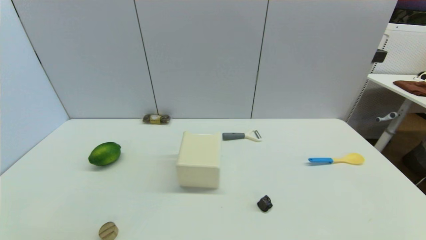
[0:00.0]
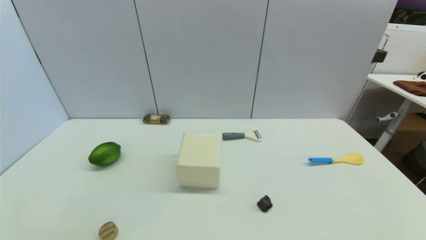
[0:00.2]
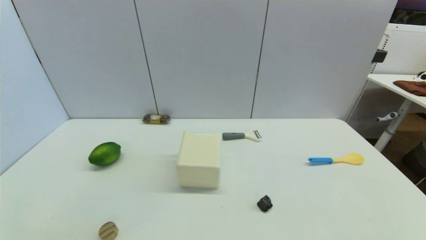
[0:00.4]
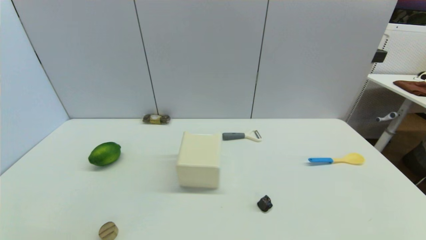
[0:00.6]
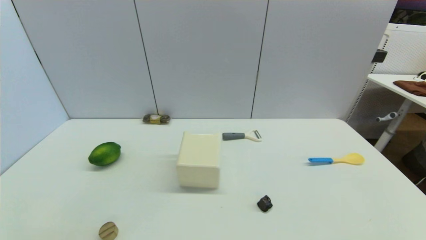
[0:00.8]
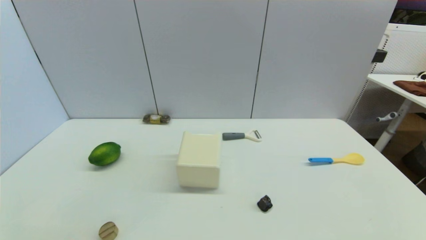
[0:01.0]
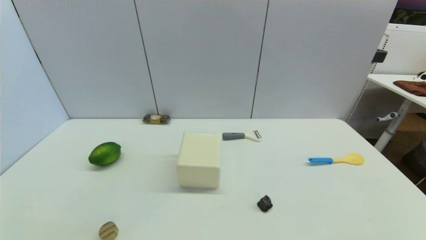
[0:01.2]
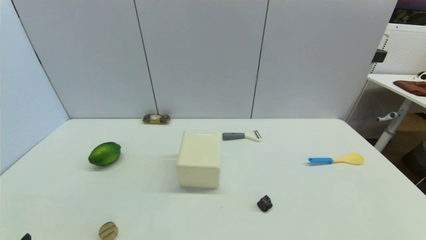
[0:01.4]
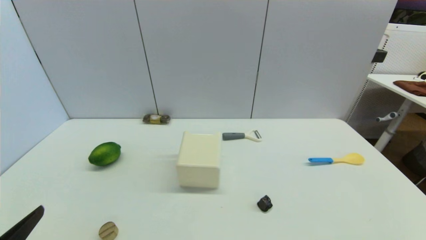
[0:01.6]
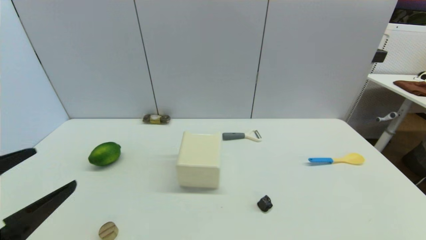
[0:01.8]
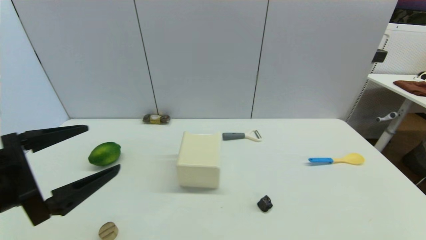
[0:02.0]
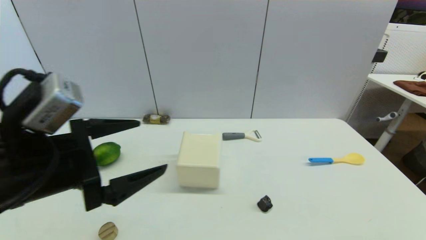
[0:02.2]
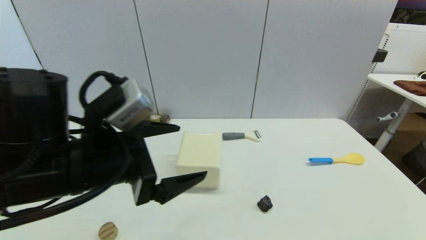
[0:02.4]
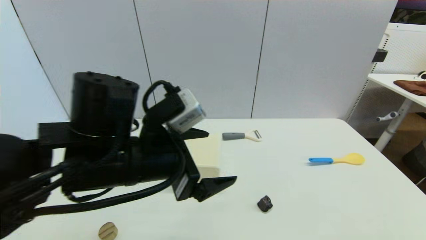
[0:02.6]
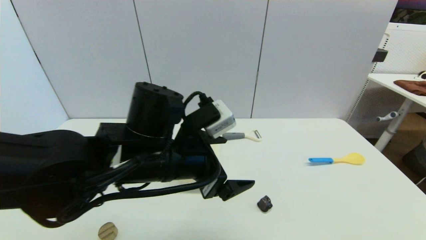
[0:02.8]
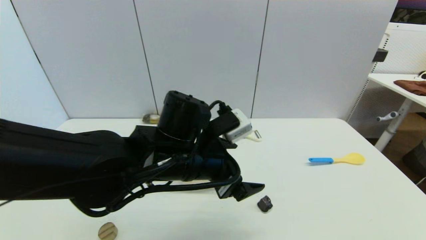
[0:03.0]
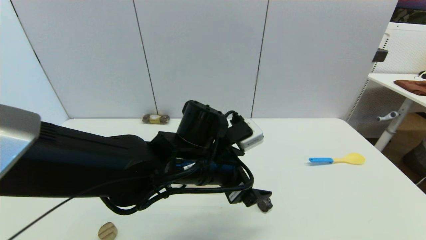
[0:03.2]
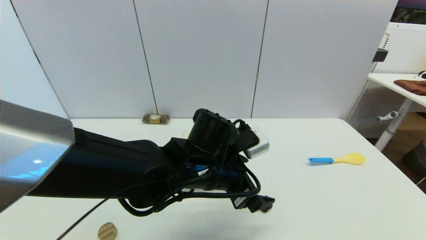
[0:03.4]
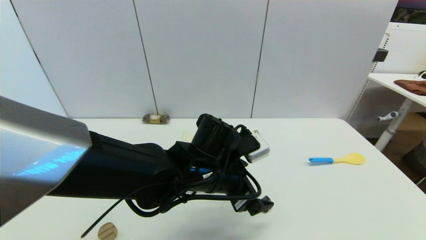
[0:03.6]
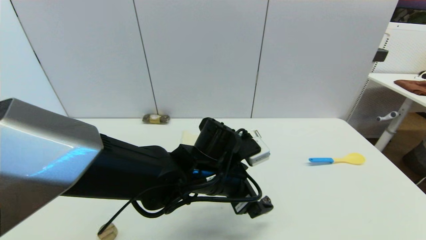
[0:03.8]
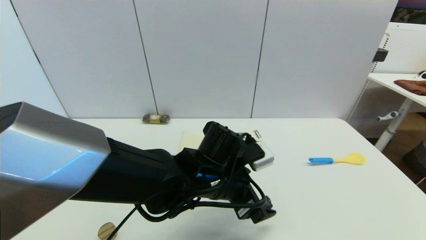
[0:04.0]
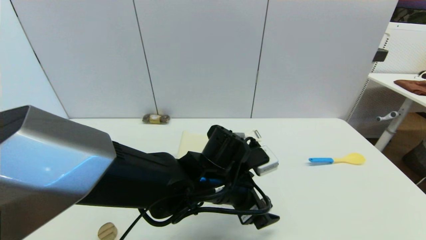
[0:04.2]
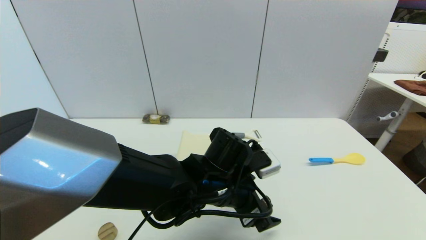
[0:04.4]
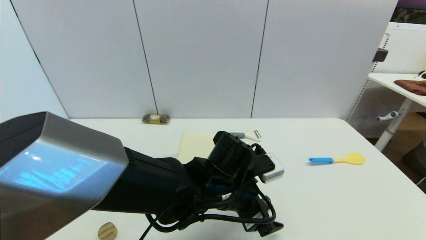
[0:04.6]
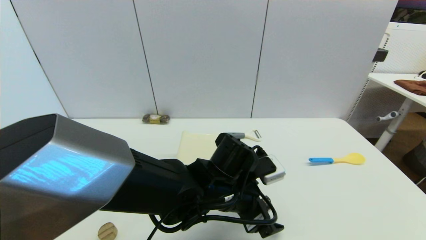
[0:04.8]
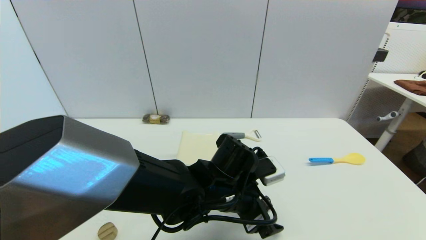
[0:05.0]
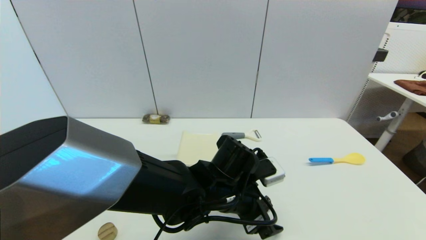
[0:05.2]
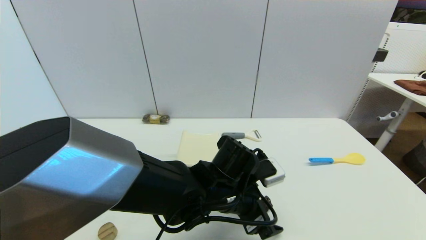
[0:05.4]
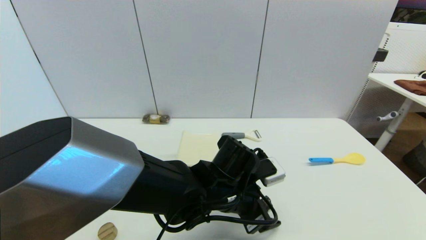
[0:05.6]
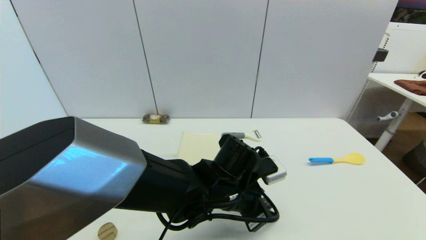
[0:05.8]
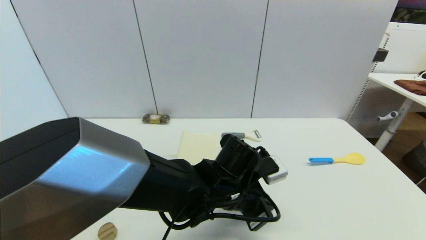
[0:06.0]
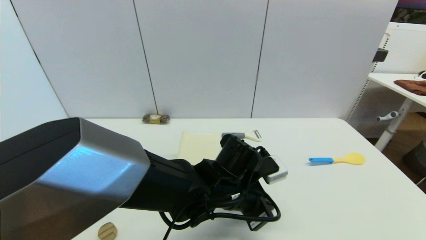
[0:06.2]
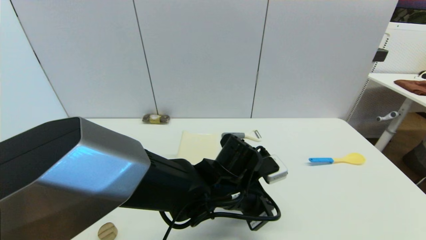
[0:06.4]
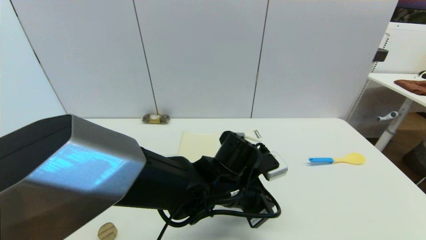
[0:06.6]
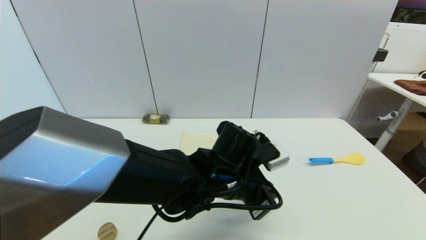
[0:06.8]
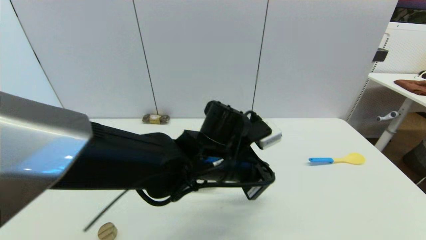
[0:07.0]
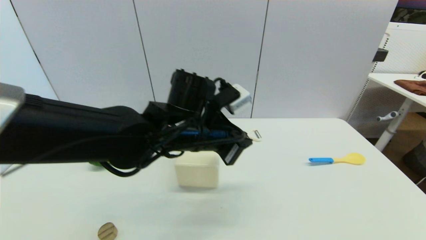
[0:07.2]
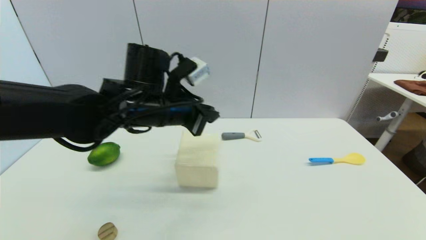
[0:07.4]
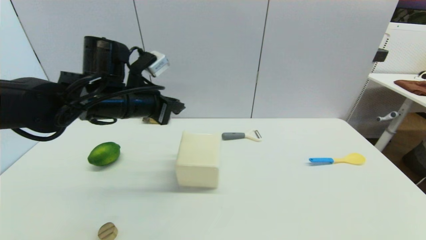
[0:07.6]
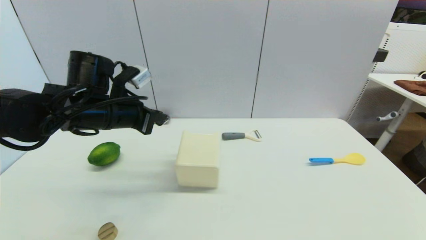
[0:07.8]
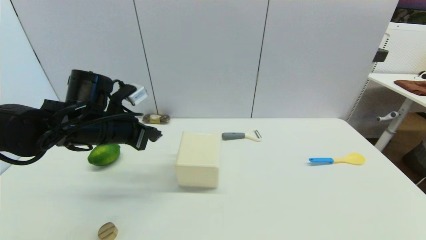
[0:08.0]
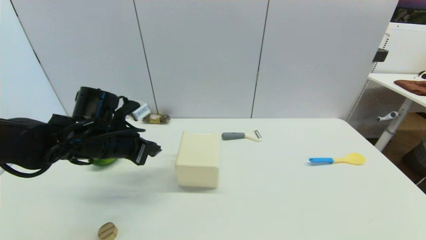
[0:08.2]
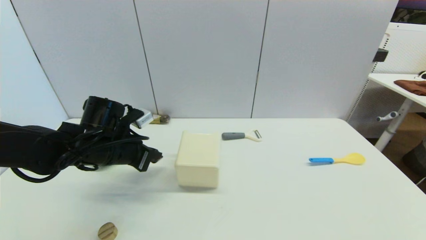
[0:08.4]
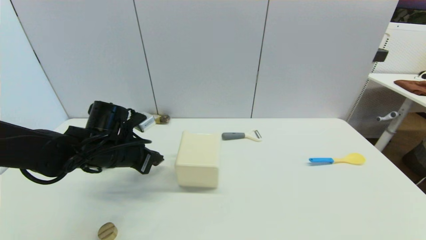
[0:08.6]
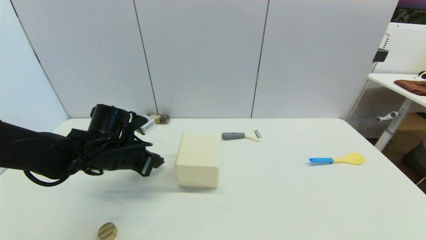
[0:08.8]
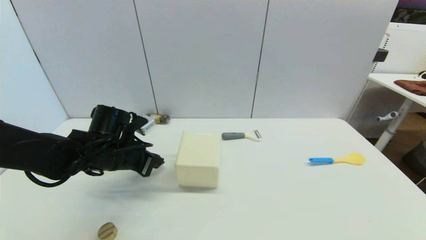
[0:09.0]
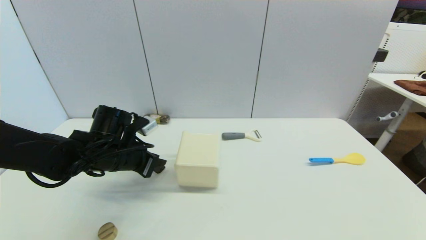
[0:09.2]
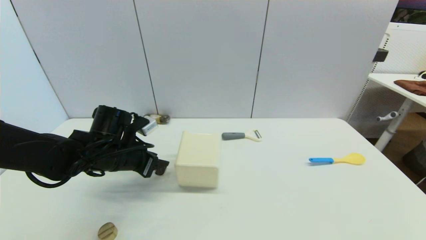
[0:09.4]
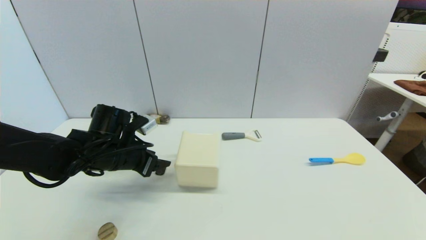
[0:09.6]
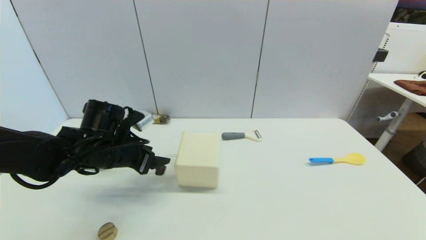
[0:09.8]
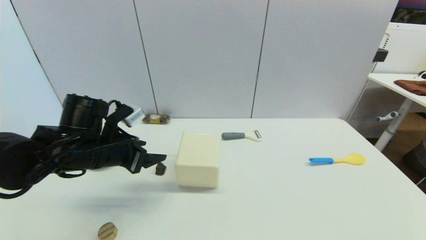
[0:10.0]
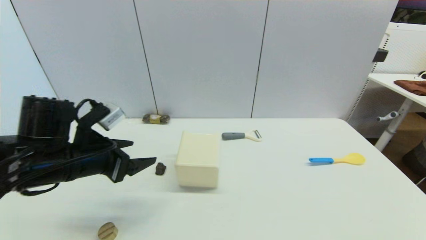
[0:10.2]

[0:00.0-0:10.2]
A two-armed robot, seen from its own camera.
Step, 0:01.4 to 0:06.6: Grasp the coffee capsule with left gripper.
Step, 0:06.8 to 0:09.4: Place the coffee capsule on the table with left gripper.
0:01.4 to 0:03.0: The left gripper shifts approximately 35 cm to the right and forward.
0:03.0 to 0:04.4: The left gripper moves downward and to the right, some 10 cm.
0:04.4 to 0:05.8: The left gripper closes up.
0:05.8 to 0:07.2: The left gripper travels upward and to the left by approximately 15 cm, and closes up.
0:07.2 to 0:08.8: The left gripper moves to the left and downward, roughly 20 cm.
0:08.8 to 0:10.2: The left gripper goes about 10 cm backward and upward, and opens up.

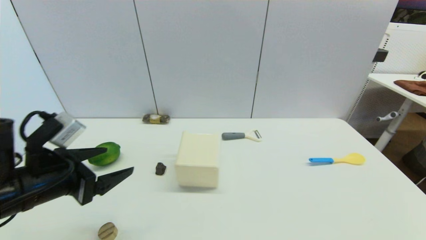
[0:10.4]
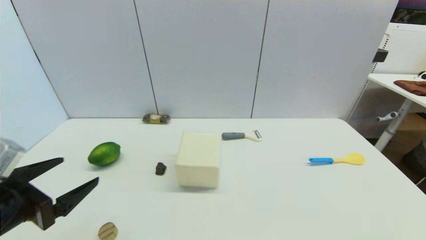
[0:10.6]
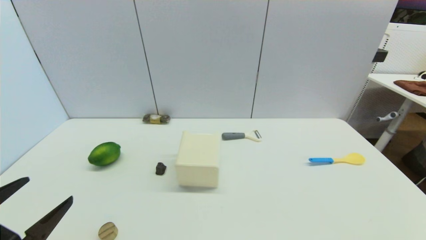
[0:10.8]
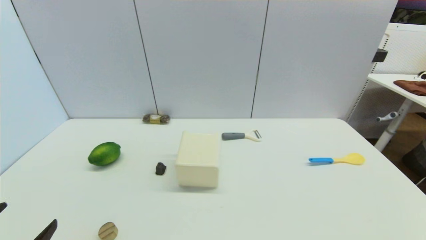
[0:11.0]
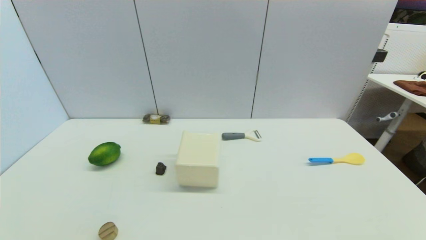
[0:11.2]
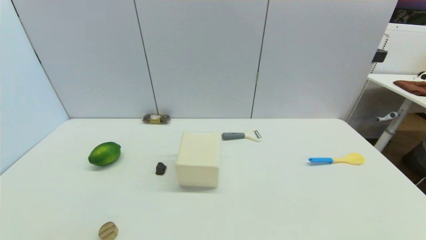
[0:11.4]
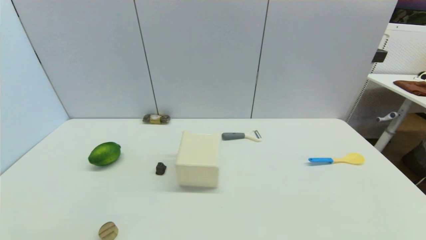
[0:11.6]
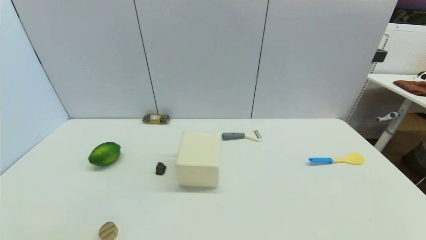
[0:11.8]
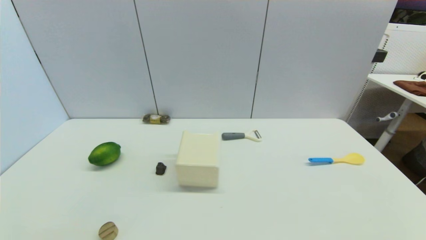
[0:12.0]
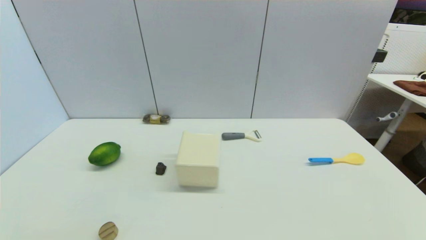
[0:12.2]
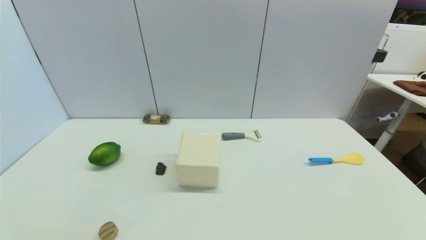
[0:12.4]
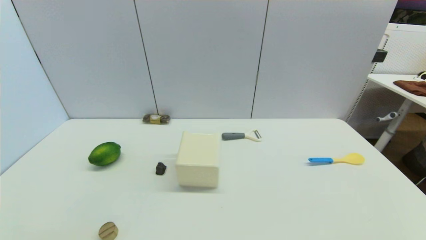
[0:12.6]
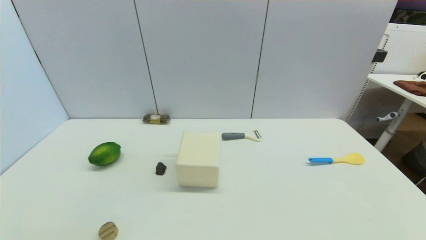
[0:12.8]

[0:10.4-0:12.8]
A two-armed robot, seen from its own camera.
0:10.4 to 0:11.6: The left gripper goes some 20 cm backward and downward.
0:11.6 to 0:12.8: Neither gripper changes place.

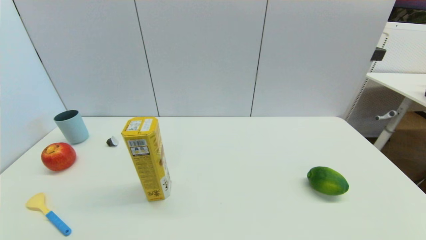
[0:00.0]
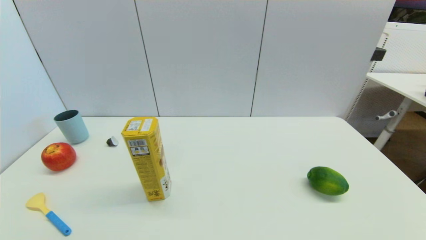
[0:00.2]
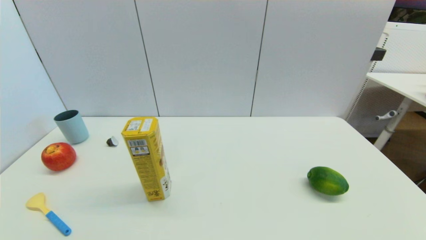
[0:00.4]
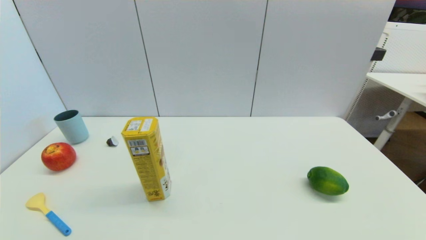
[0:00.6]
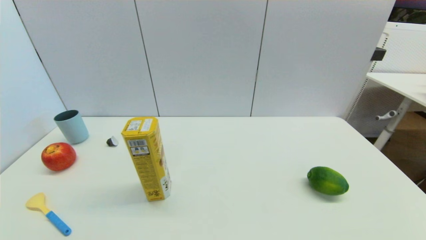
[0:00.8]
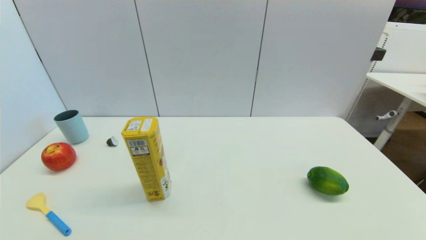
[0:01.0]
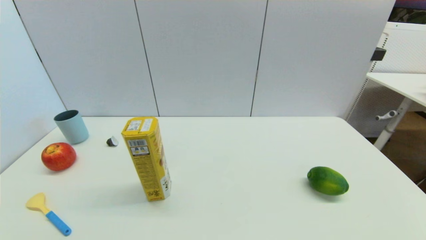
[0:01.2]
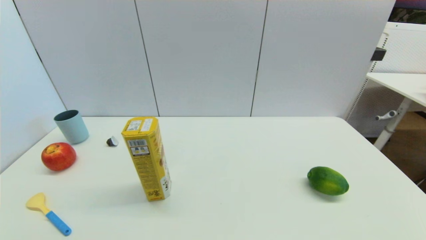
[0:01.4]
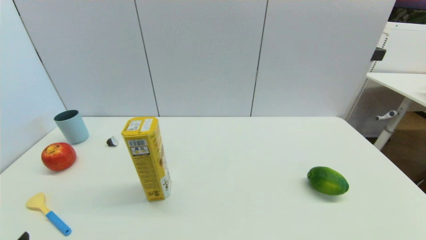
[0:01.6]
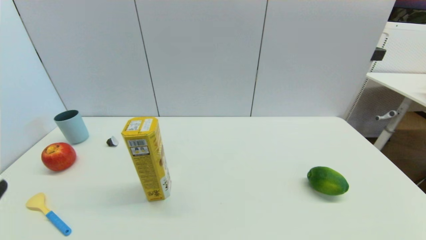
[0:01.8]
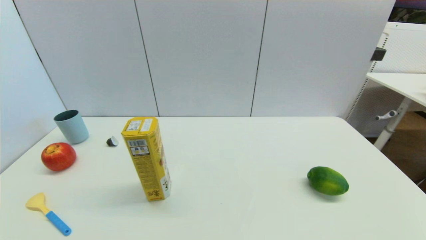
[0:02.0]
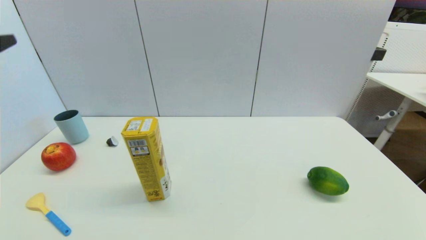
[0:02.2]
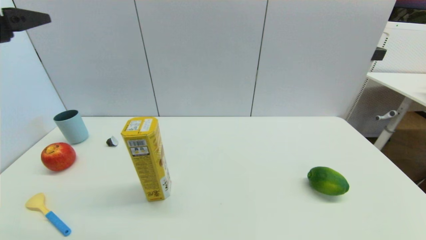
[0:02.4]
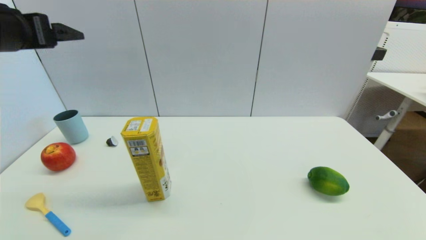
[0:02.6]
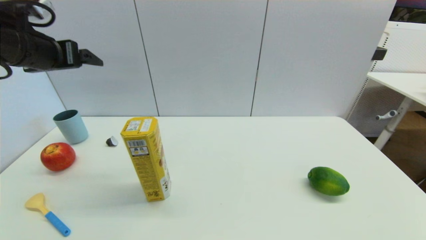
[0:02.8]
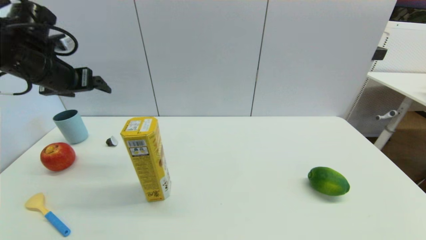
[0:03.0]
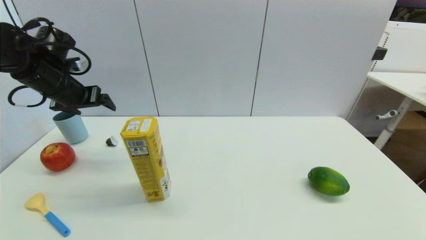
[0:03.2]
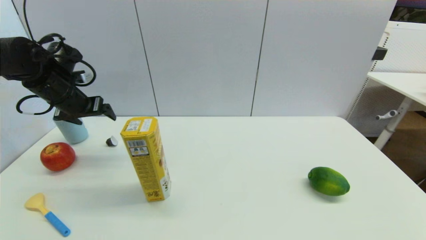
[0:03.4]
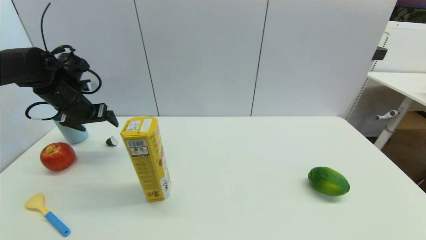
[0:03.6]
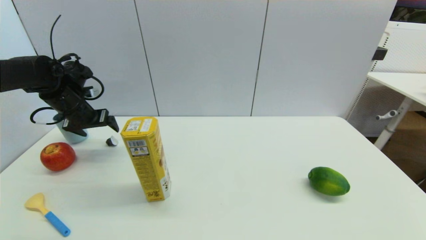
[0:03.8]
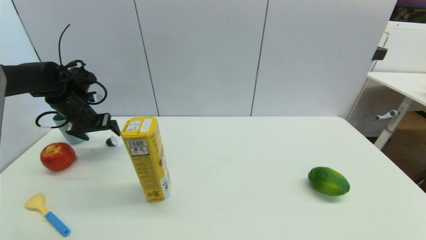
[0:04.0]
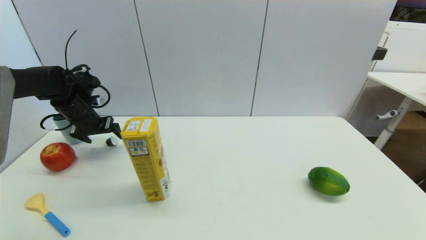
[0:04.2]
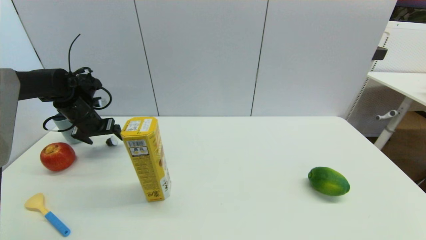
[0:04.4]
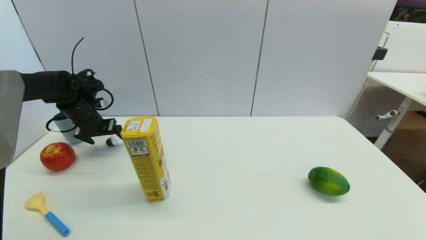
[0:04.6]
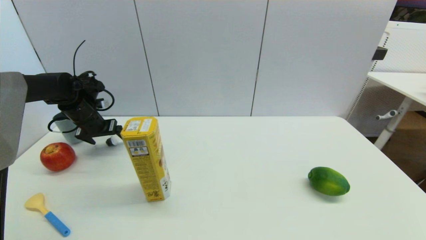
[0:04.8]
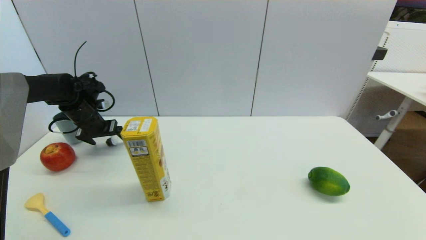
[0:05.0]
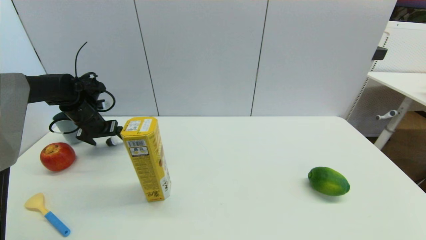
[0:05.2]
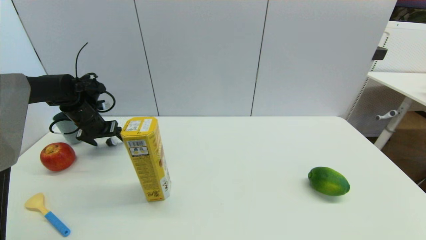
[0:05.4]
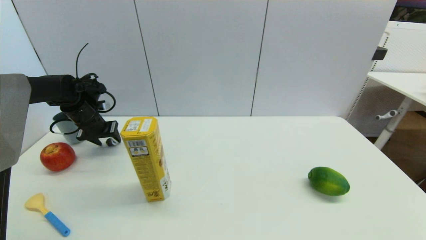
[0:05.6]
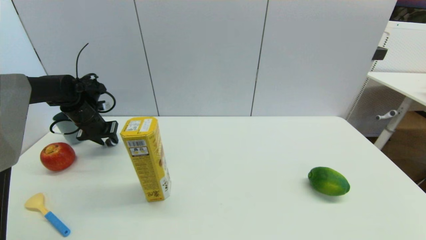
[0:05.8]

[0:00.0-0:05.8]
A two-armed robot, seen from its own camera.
0:00.0 to 0:01.4: The two grippers keep their place.
0:01.4 to 0:02.8: The left gripper heads forward and upward, covering some 40 cm.
0:02.8 to 0:04.4: The left gripper heads downward and forward, covering some 20 cm.
0:04.4 to 0:05.8: The left gripper closes.
